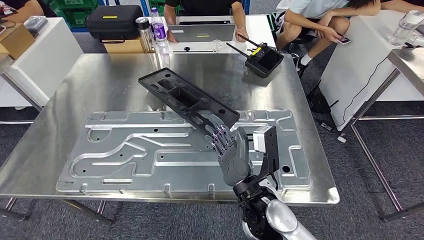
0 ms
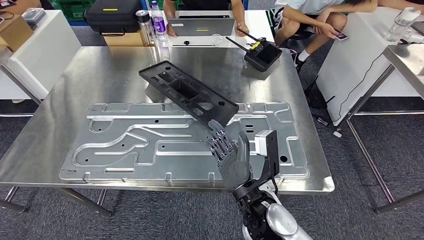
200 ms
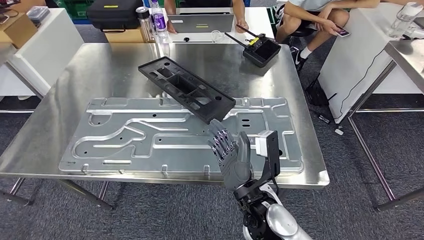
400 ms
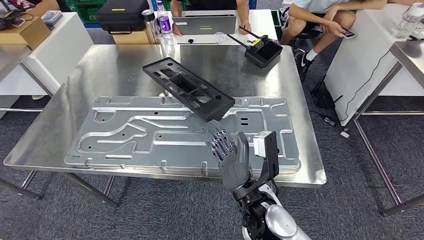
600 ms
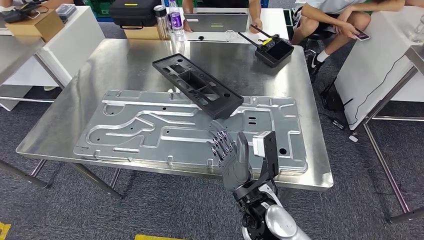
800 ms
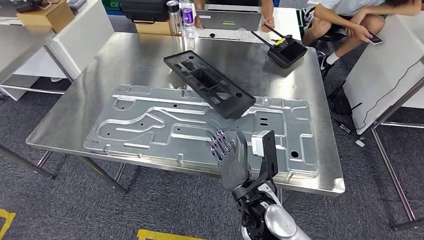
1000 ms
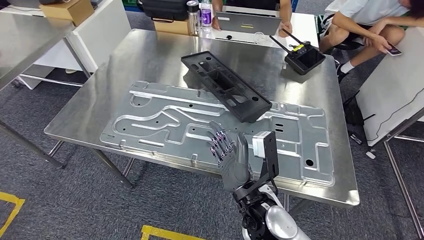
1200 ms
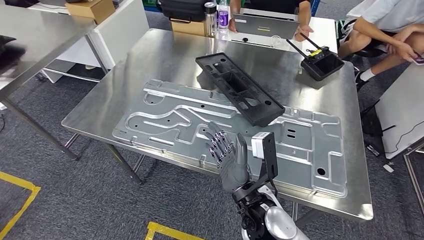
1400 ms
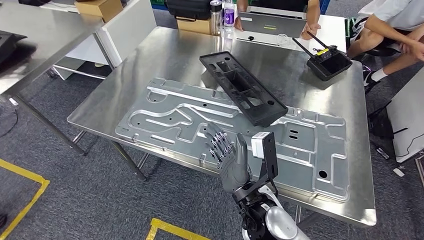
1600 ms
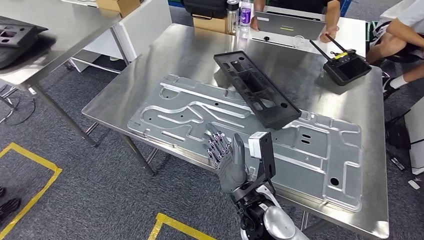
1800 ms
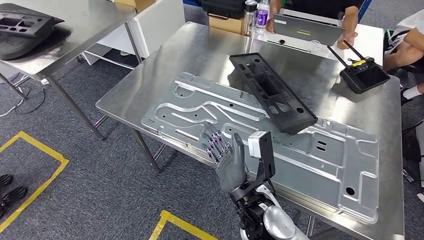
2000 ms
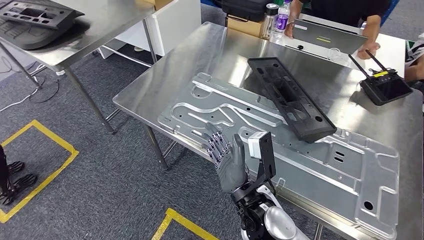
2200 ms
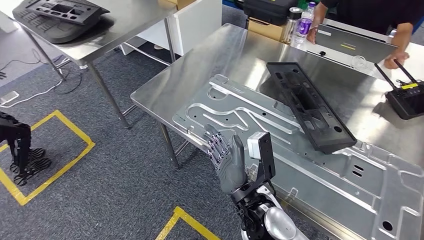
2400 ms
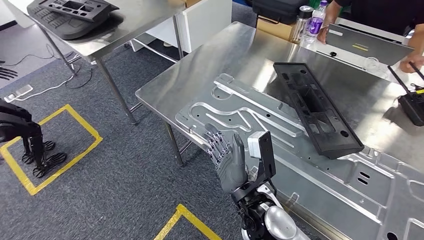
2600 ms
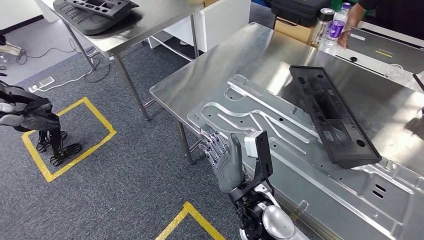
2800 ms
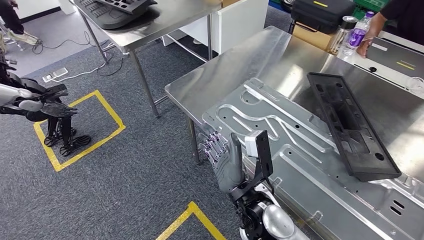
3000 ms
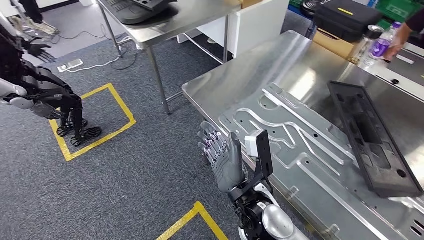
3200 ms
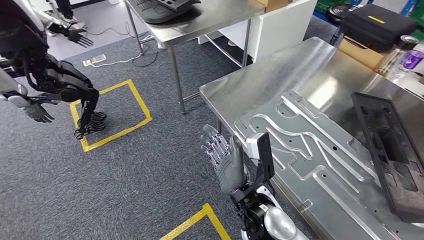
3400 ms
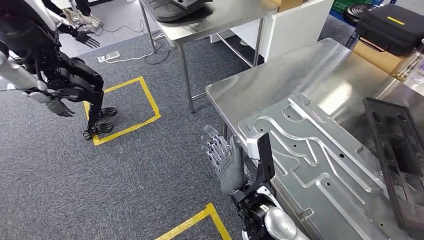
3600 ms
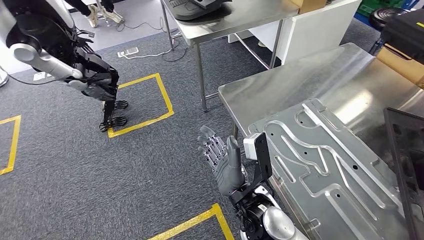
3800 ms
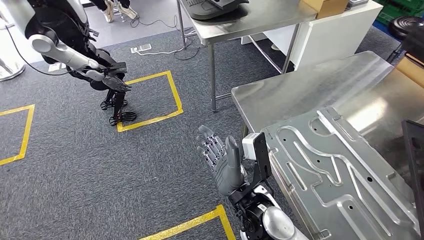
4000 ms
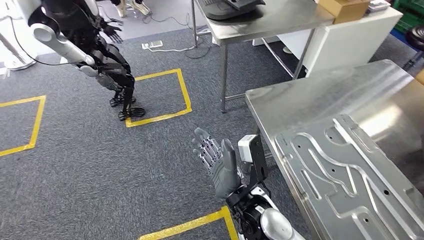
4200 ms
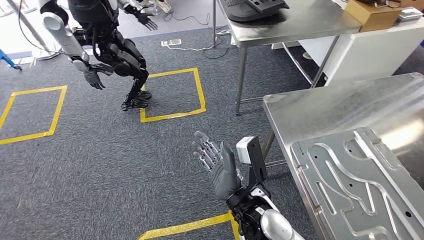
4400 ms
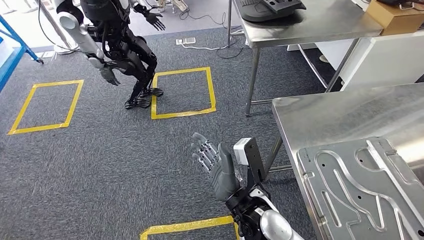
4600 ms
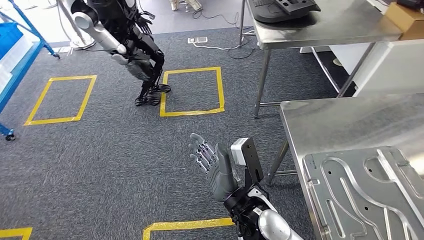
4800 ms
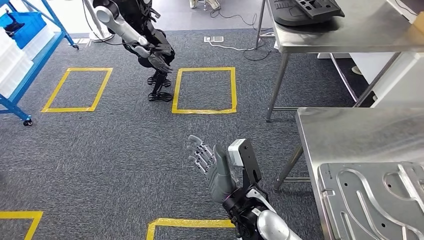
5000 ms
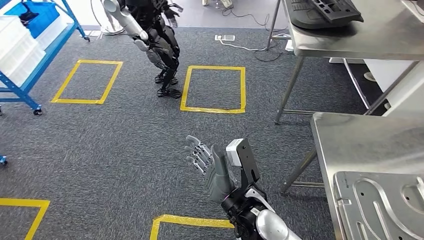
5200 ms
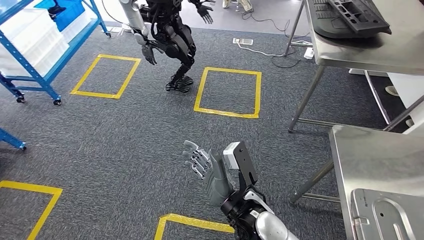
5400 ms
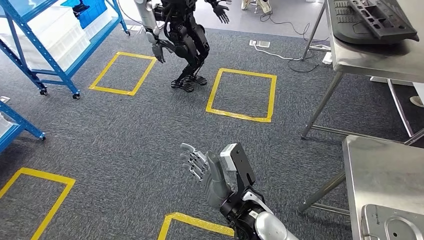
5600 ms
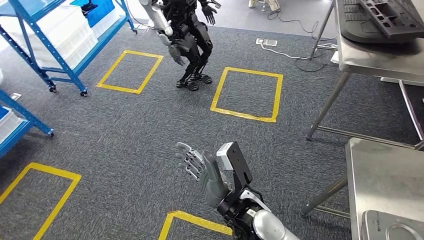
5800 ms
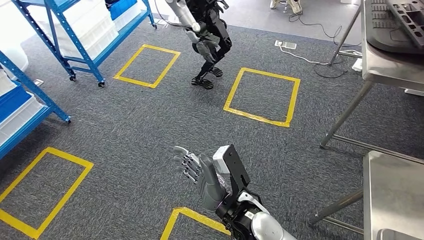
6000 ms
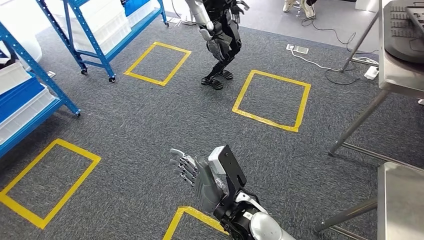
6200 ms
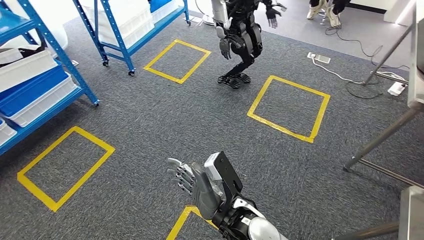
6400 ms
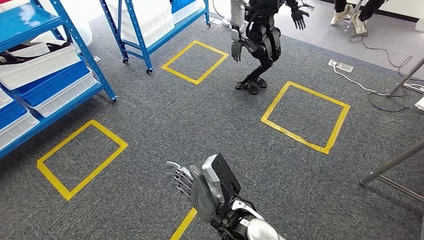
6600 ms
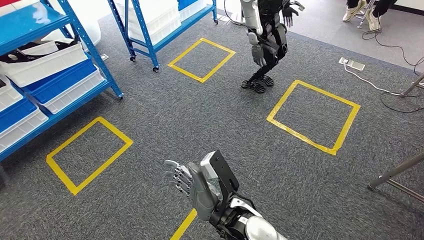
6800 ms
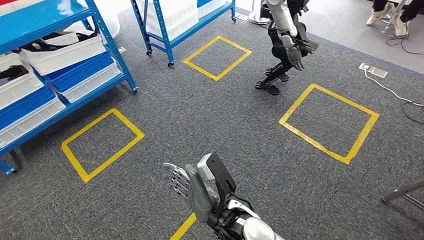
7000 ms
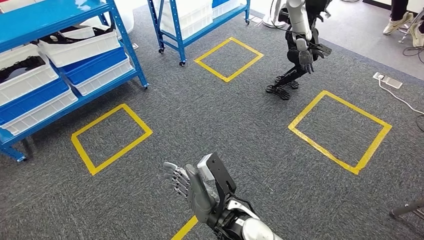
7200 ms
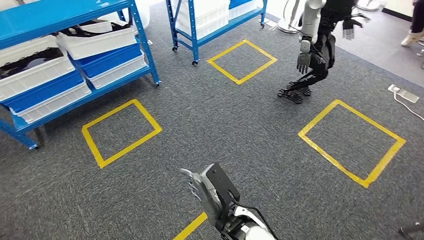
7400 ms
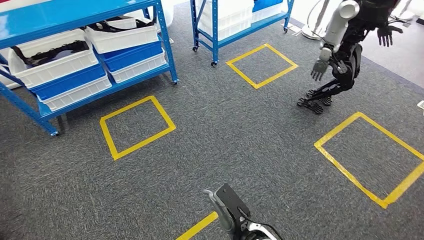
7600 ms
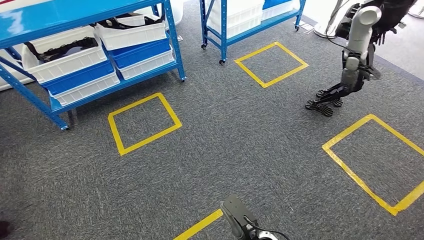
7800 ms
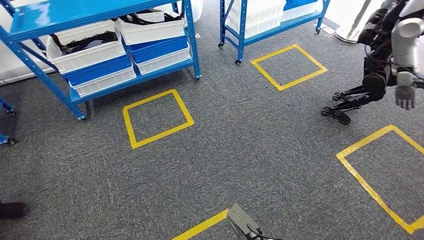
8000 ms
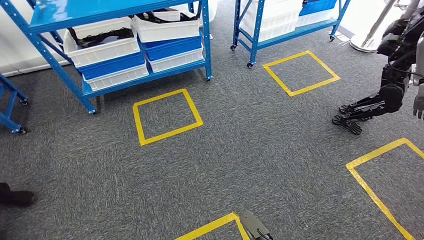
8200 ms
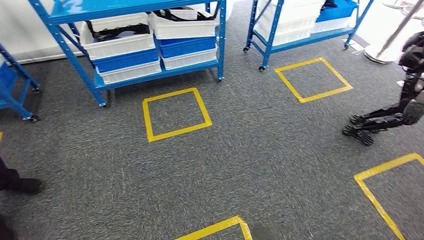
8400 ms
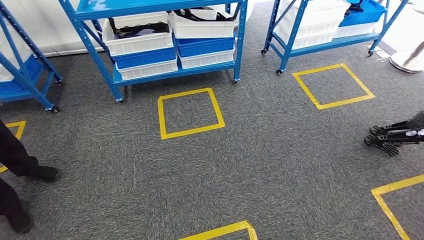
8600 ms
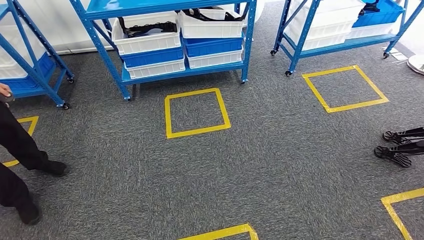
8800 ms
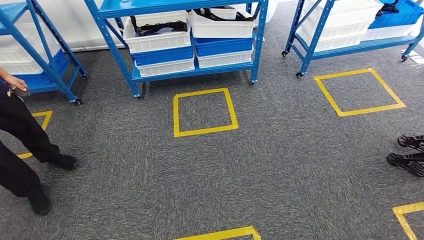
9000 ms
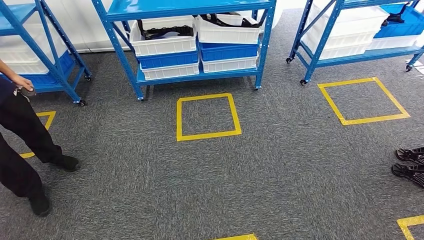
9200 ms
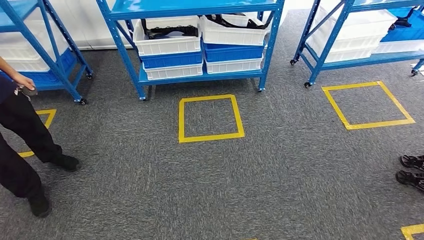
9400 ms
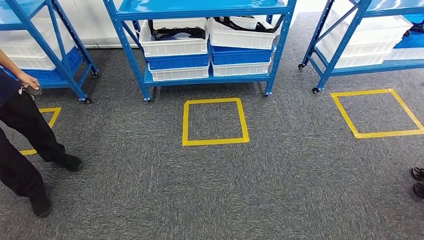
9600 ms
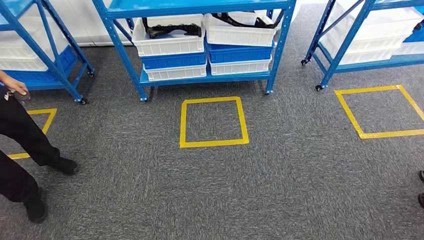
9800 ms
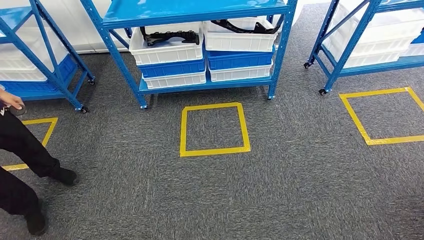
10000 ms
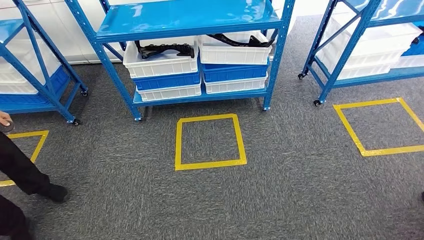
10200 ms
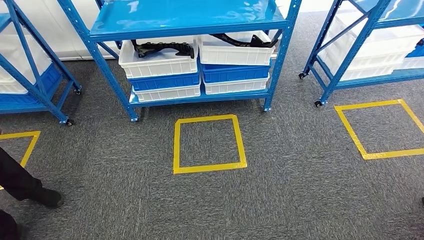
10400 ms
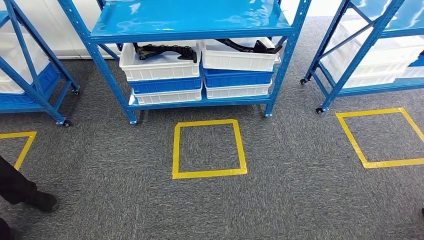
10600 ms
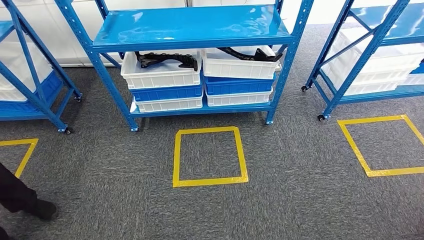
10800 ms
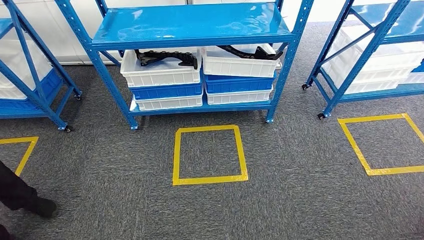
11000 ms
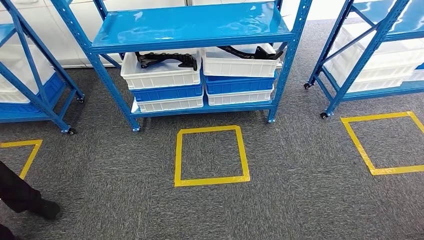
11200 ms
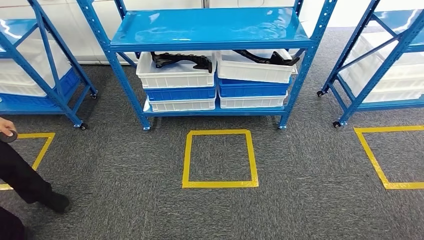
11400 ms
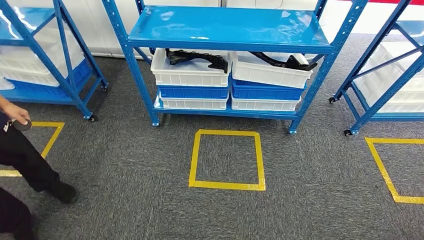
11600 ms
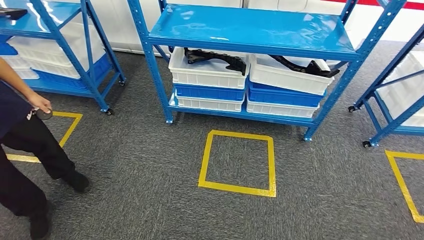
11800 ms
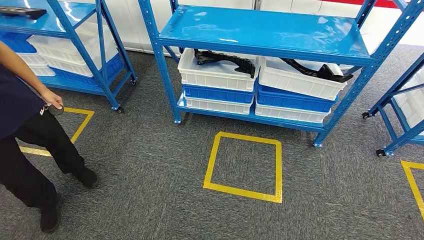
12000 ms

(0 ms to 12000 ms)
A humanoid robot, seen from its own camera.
Step, 0 ms - 2400 ms: Insert the large material into the corresponding slot on the workbench.

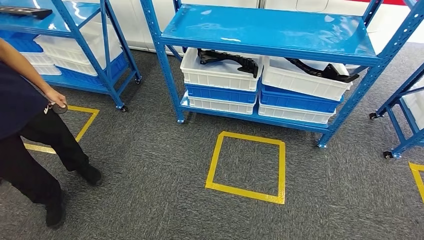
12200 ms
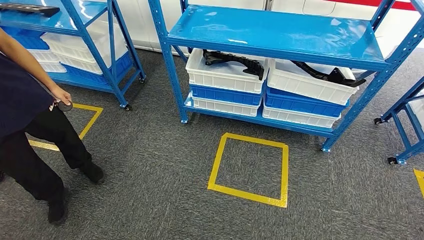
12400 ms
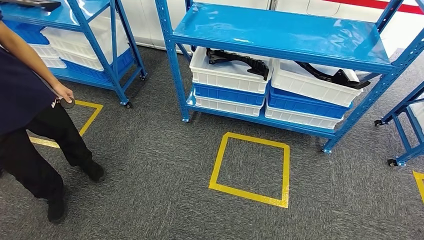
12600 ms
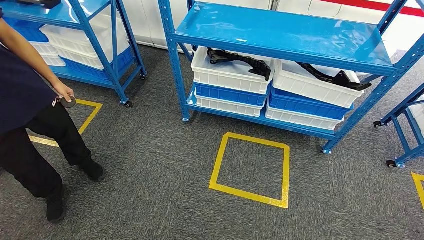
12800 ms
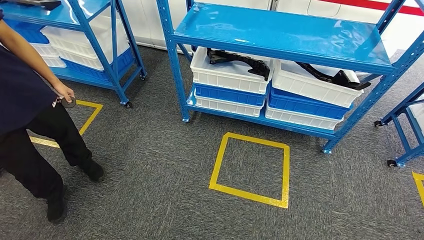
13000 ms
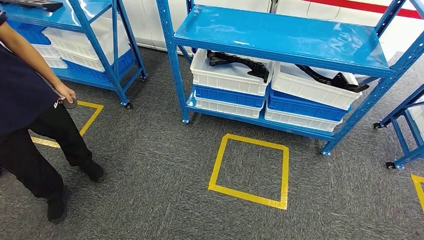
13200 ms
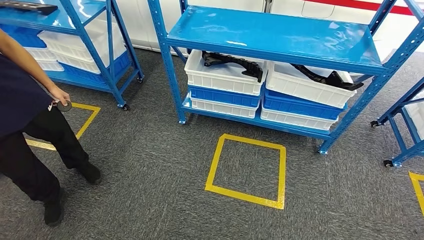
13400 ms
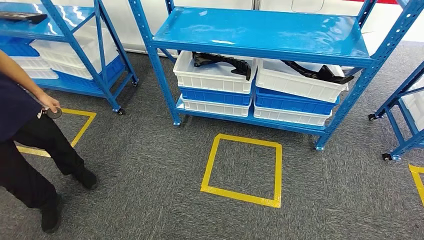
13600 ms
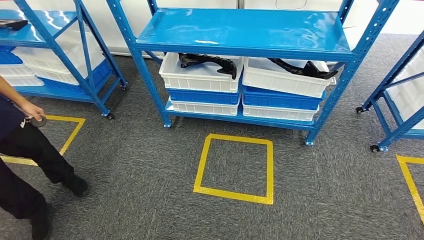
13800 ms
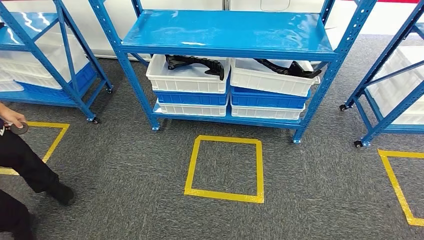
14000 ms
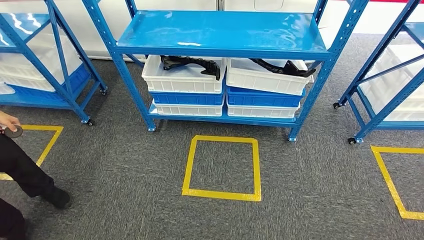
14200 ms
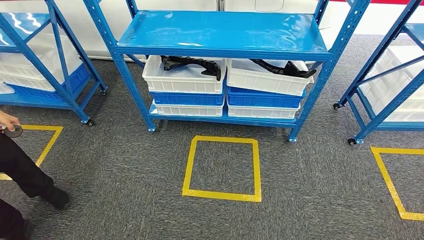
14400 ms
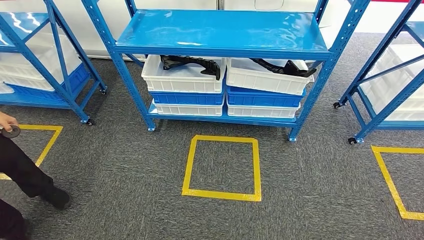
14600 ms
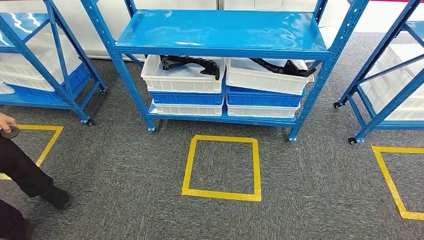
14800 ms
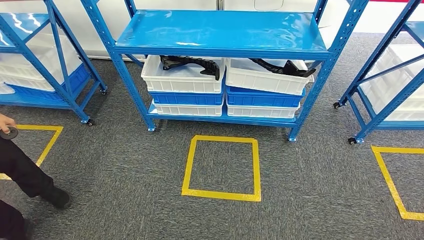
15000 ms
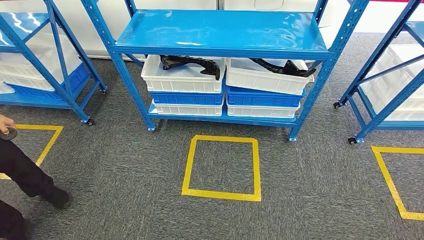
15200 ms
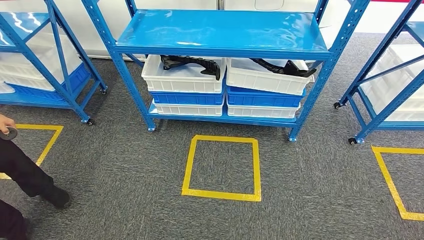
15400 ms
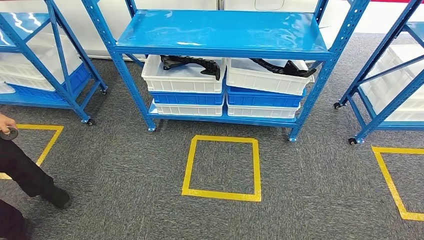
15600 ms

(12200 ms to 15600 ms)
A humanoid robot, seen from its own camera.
Step, 12200 ms - 15600 ms: Move to the initial position of the shelf.
